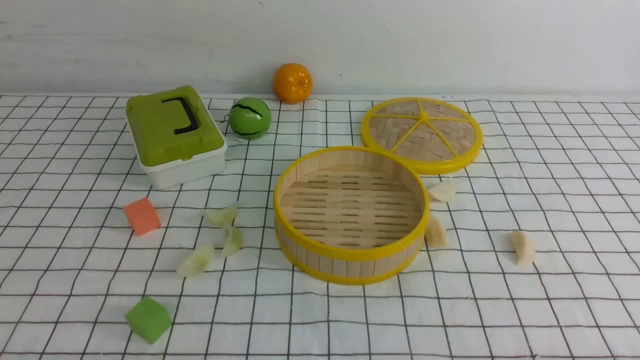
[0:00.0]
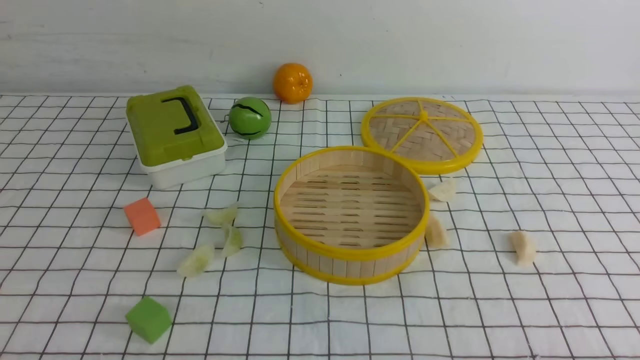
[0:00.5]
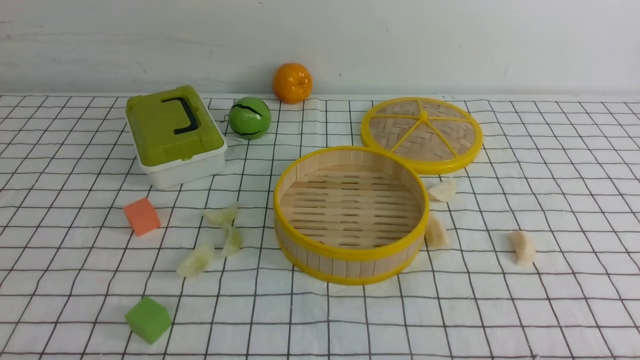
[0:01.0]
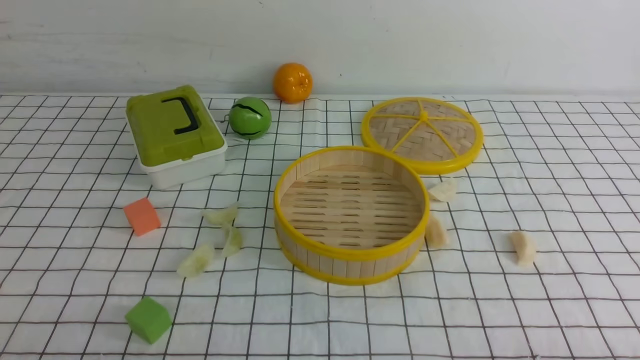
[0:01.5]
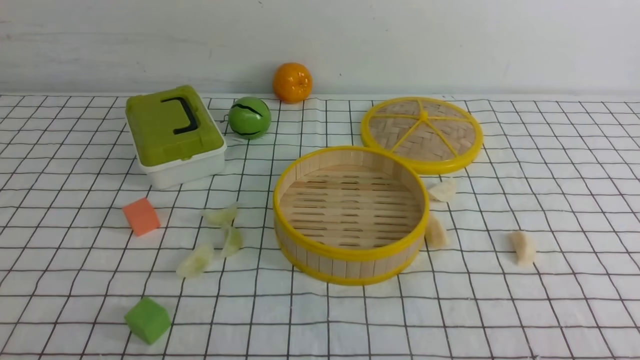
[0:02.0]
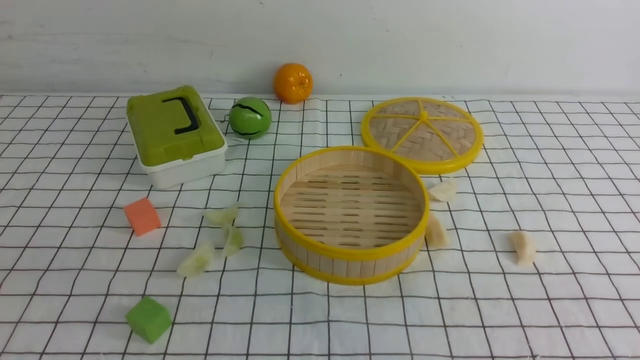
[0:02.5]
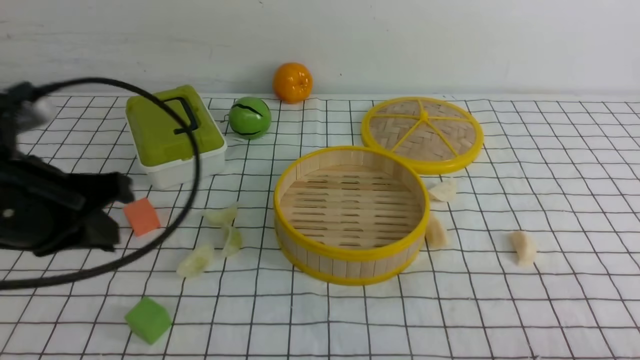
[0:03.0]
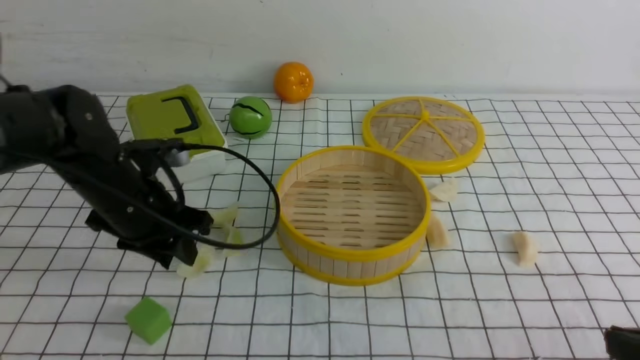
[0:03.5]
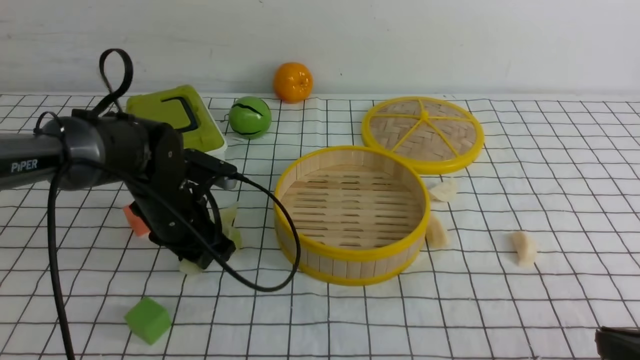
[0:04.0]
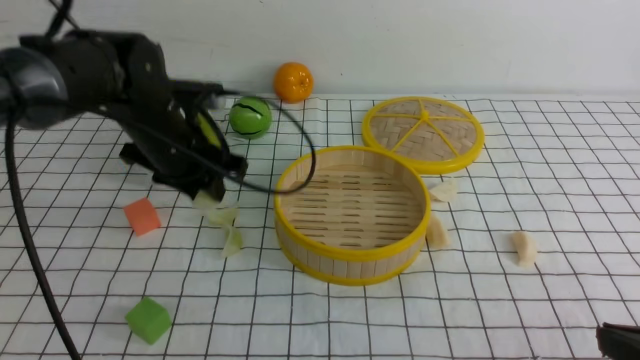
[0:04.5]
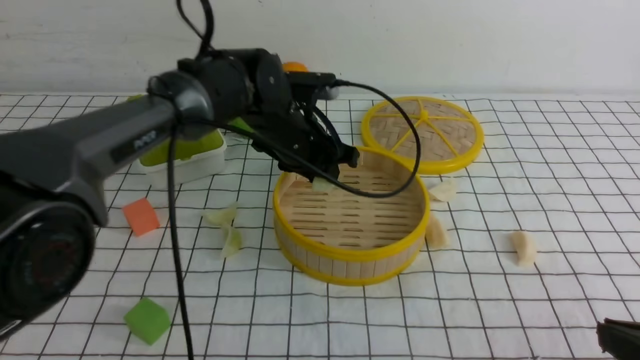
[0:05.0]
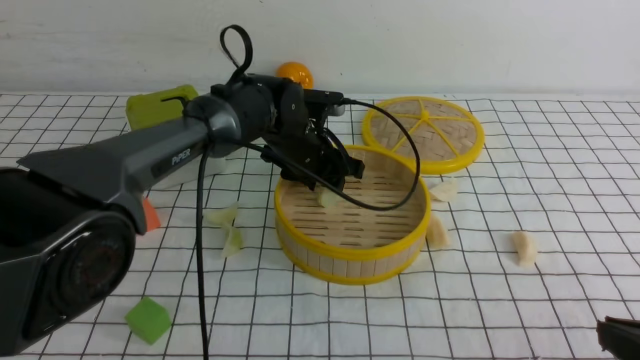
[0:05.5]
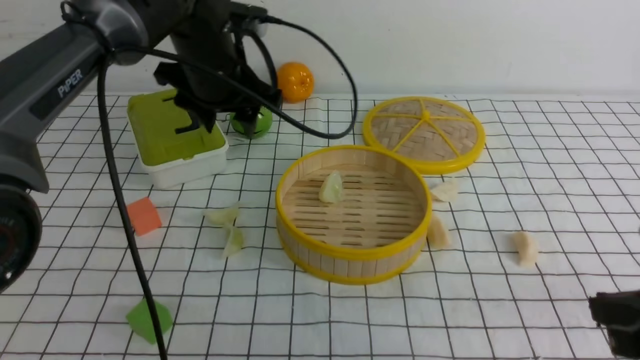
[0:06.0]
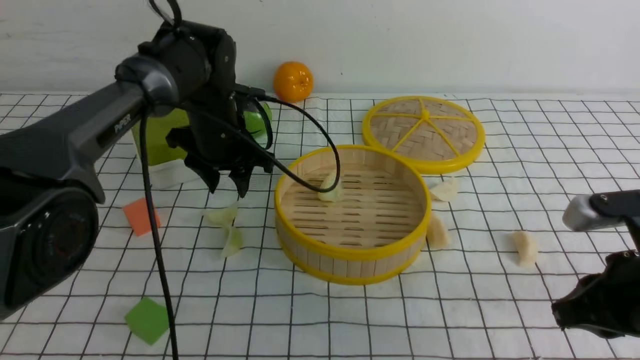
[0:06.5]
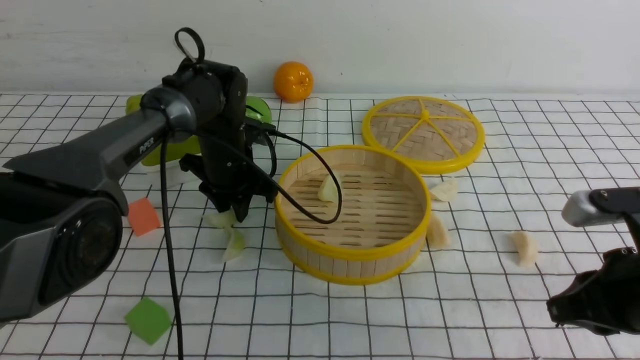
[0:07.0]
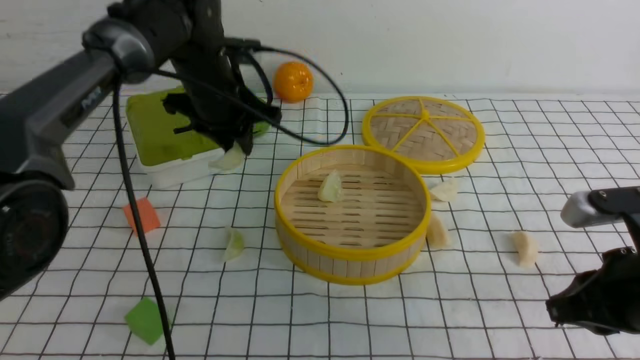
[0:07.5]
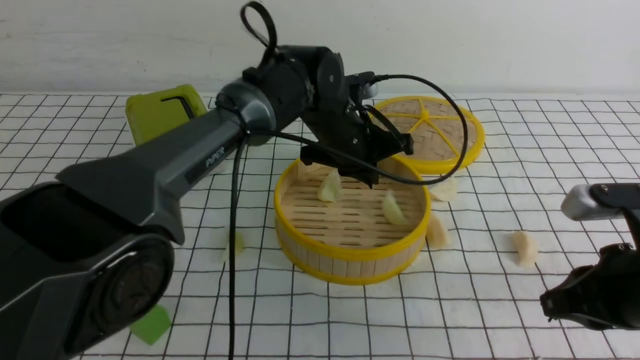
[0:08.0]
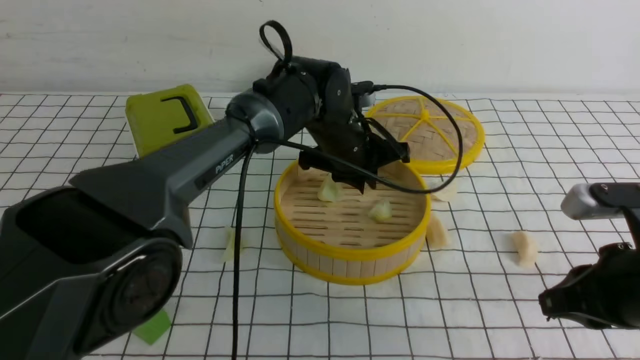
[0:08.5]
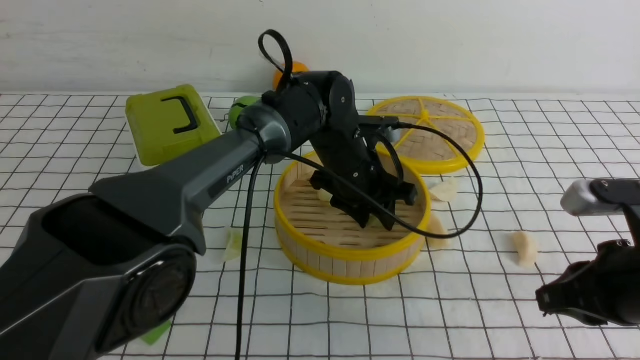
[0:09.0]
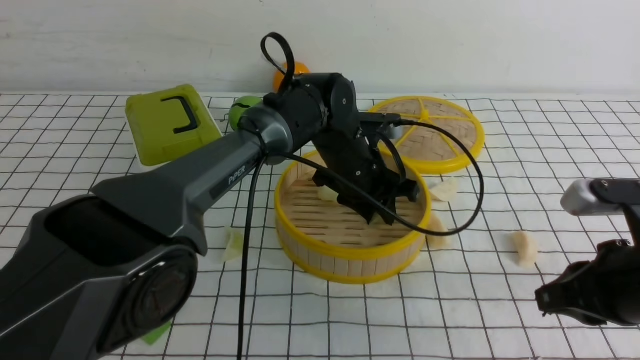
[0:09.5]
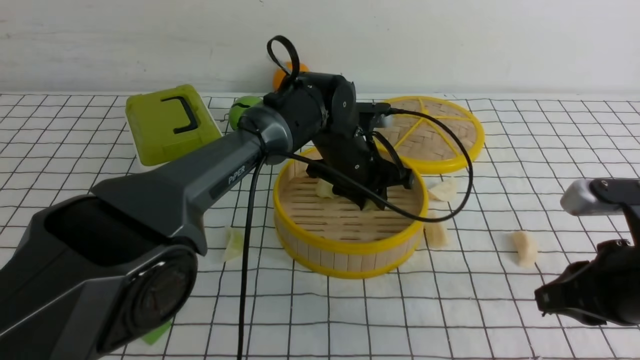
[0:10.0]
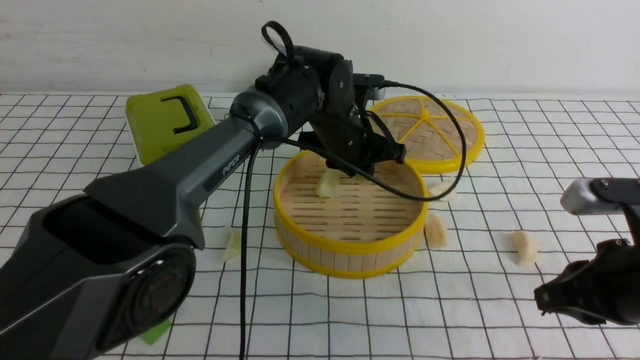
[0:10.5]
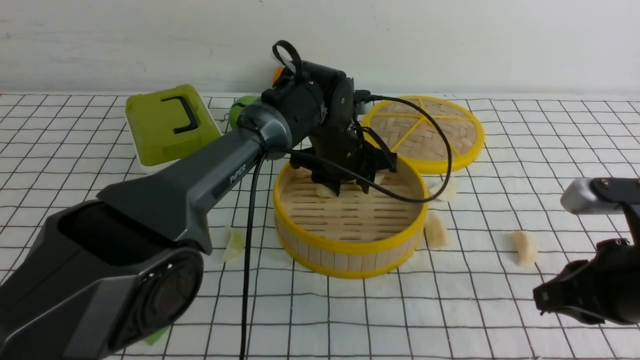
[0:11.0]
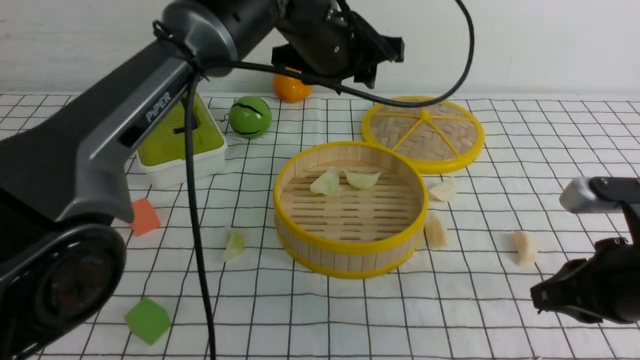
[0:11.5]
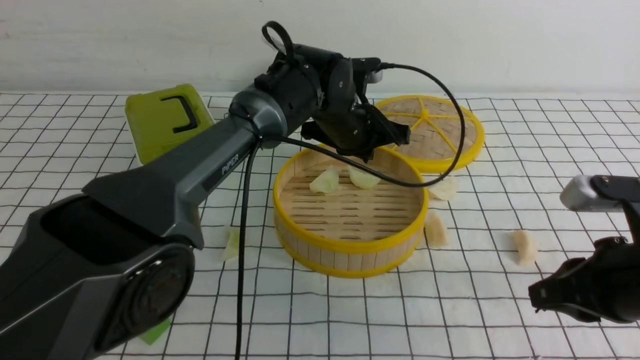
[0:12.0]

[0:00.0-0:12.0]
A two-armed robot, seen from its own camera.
Task of the whole recording: put the dumplings into the steamer on the table with the white tablecloth.
Step, 0:00.0 to 0:04.0: use the left arm to grab a dumpling.
Step, 0:04.5 to 0:05.5: use the left arm to put the dumpling into the steamer.
Step, 0:06.0 to 0:07.5: use the left arm to grab a dumpling.
0:02.0 to 0:04.0: The right gripper shifts some 5 cm forward, and closes. The left gripper travels forward by some 35 cm, and closes, then opens again.
0:04.0 to 0:06.0: The left gripper goes roughly 15 cm upward, forward and to the right.
0:06.0 to 0:08.0: The right gripper travels forward by approximately 5 cm. Meanwhile the left gripper shifts approximately 15 cm to the right and downward, and closes.
0:08.0 to 0:10.0: The left gripper opens its fingers.
0:10.0 to 0:12.0: The left gripper goes upward and returns, about 10 cm each way, and closes.

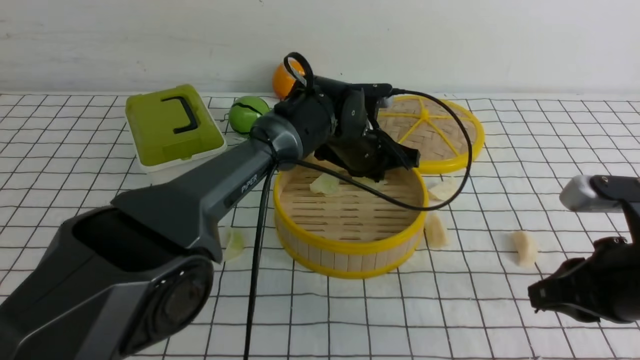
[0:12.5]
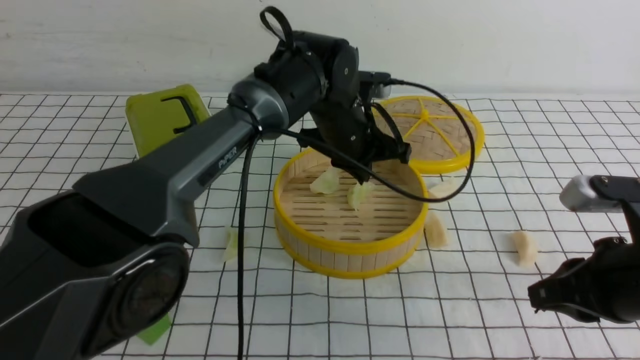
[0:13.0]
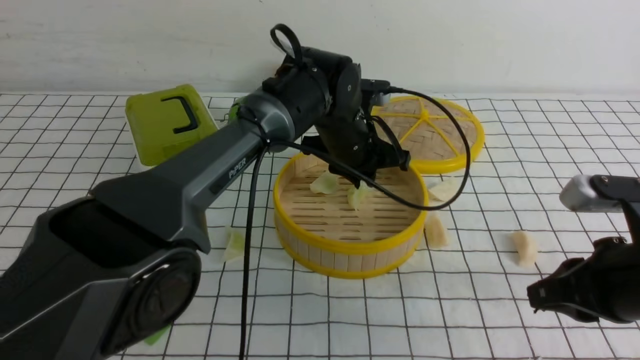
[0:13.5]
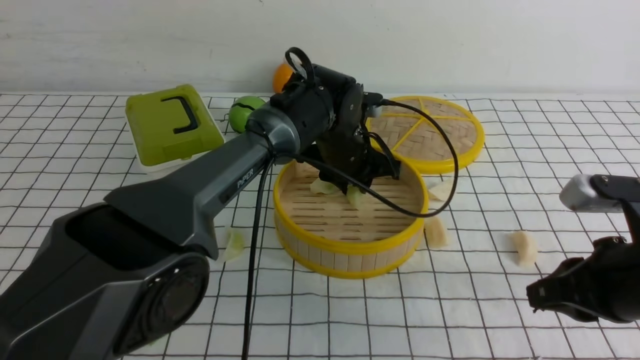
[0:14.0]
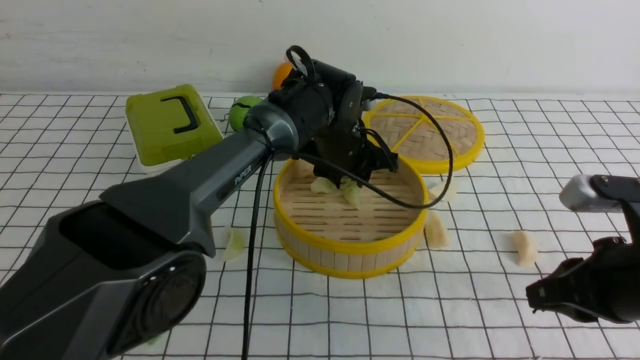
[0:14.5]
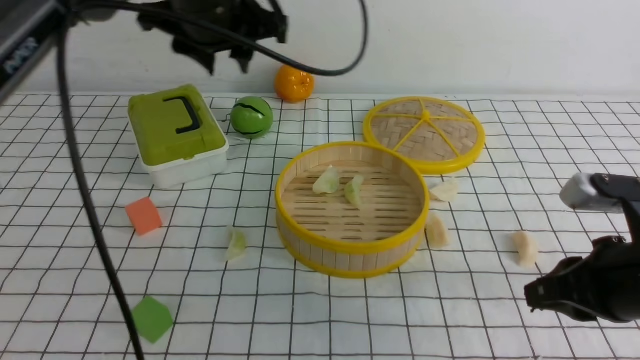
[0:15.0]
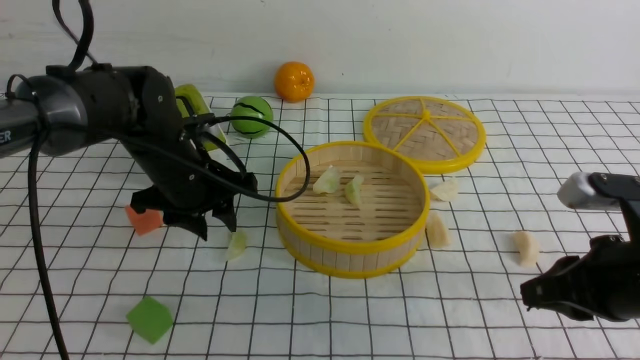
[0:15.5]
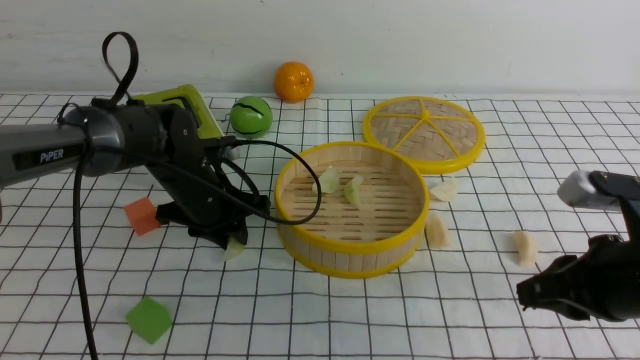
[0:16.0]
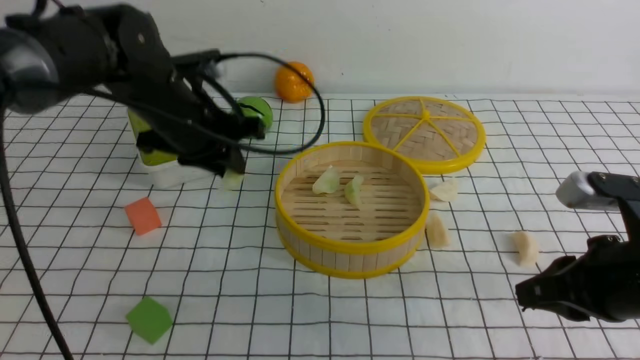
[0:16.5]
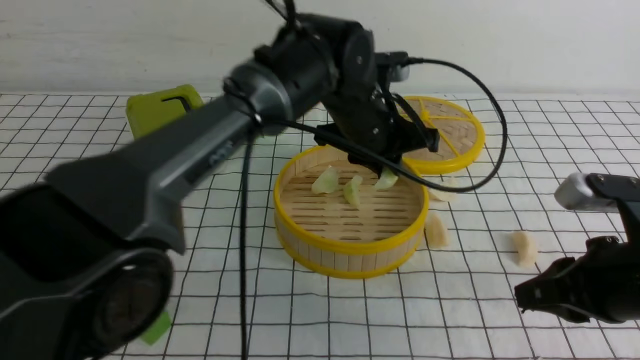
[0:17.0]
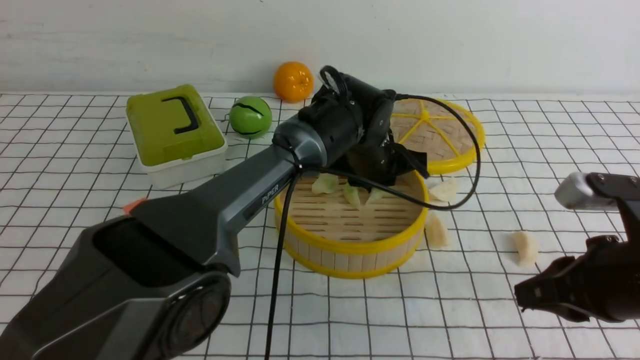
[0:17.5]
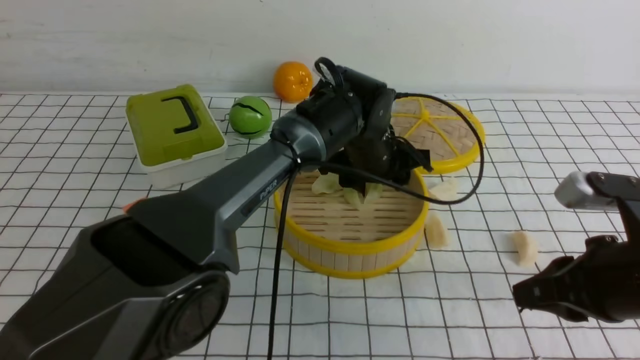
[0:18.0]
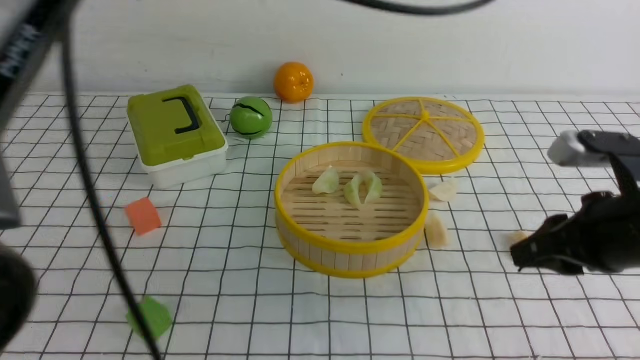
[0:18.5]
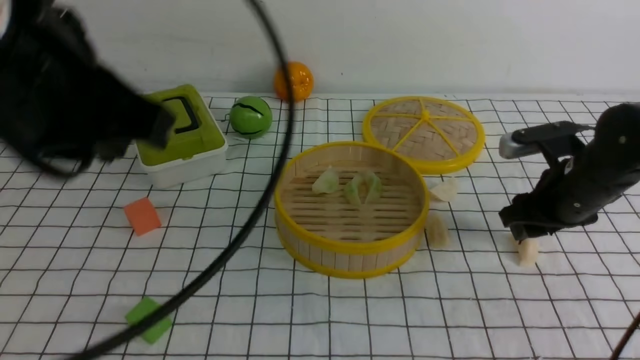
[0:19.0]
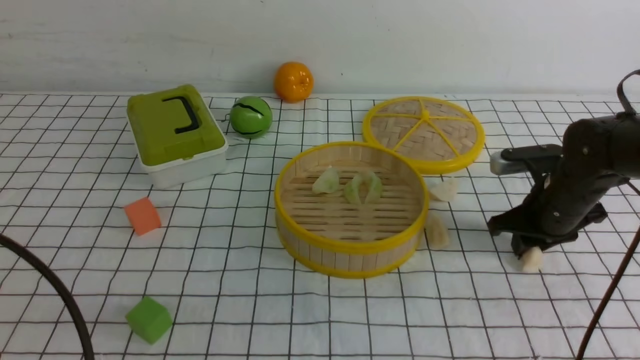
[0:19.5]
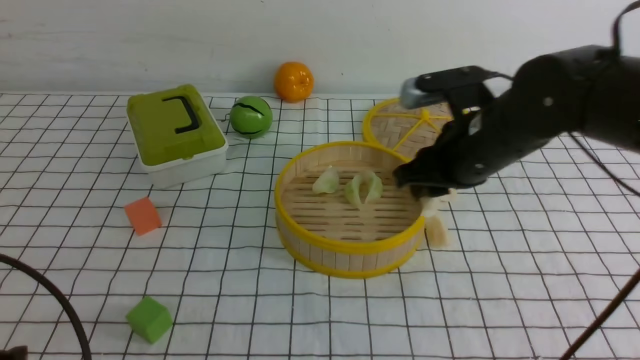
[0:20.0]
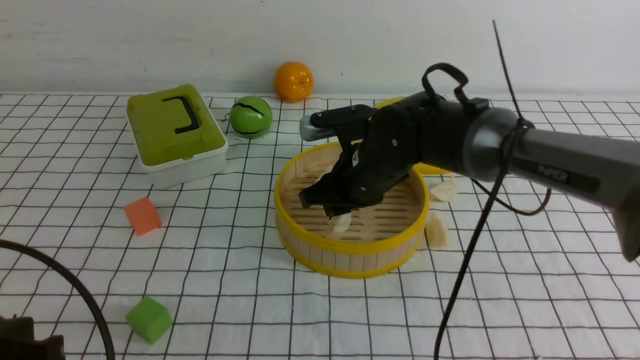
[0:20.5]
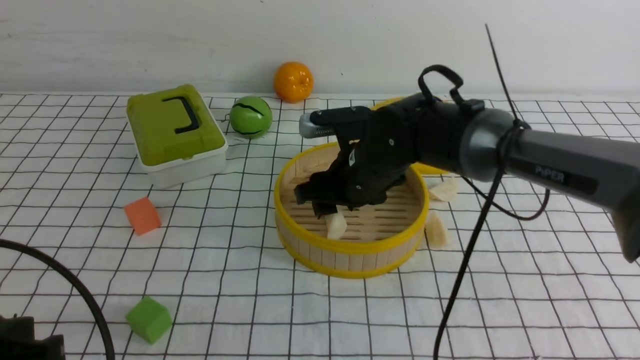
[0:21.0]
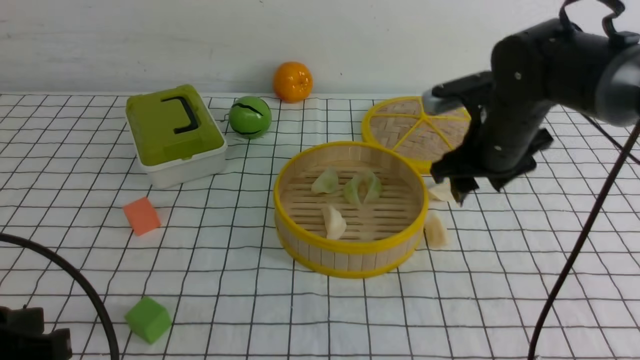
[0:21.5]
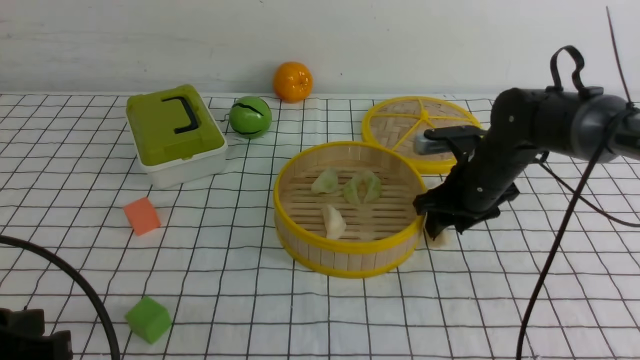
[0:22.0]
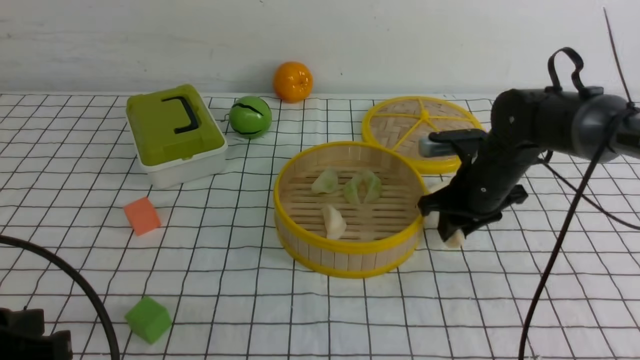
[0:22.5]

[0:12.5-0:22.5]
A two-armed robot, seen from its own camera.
Task of the whole recording: put the dumplings into the steamer on the table with the white tablecloth.
Step, 0:12.5 to 0:16.5: use the left arm to grab a dumpling.
Step, 0:17.0 to 0:18.0: use the left arm to put the dumpling into the steamer.
Step, 0:18.5 to 0:19.5: use the right arm to grab a dumpling.
Step, 0:20.0 to 0:21.0: use the right arm to put the dumpling into the steamer.
0:12.5 to 0:14.5: The left gripper swings up and down, about 5 cm each way, with 2 reversals, and opens.
0:14.5 to 0:16.5: The left gripper swings up and down, about 15 cm each way, with 2 reversals.
0:16.5 to 0:18.5: The left gripper shifts roughly 20 cm upward, and opens, then closes again.
0:18.5 to 0:20.5: The left gripper is displaced backward, downward and to the left by approximately 35 cm. The right gripper travels to the left and forward by roughly 25 cm.
0:20.5 to 0:22.5: The right gripper goes roughly 15 cm to the right, and opens and closes again.
